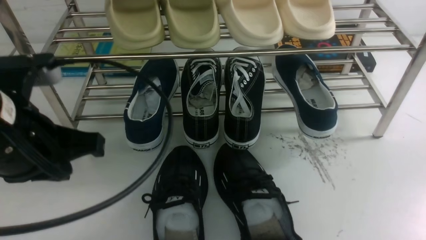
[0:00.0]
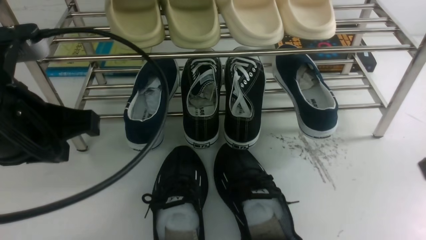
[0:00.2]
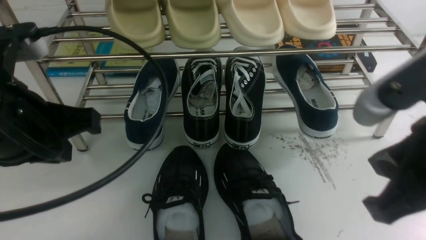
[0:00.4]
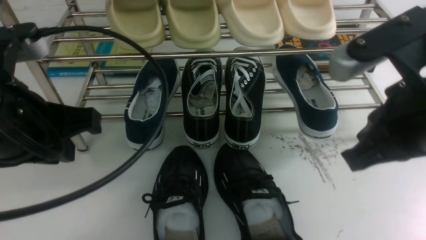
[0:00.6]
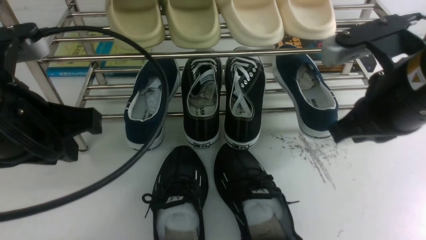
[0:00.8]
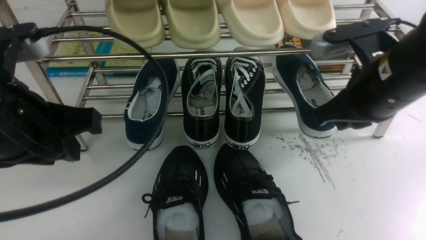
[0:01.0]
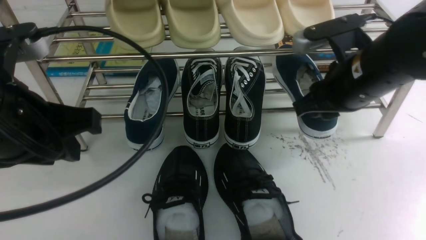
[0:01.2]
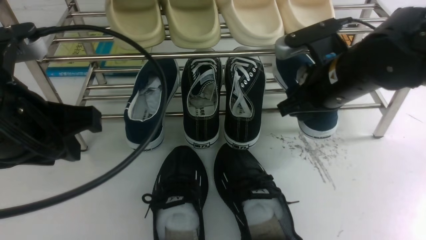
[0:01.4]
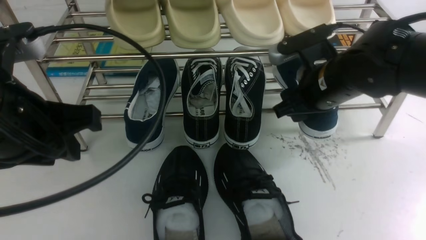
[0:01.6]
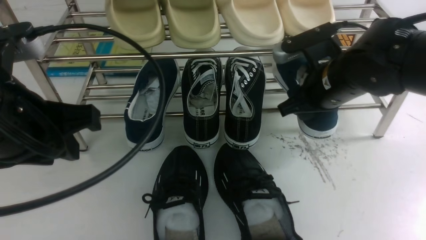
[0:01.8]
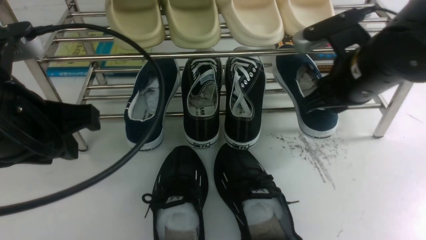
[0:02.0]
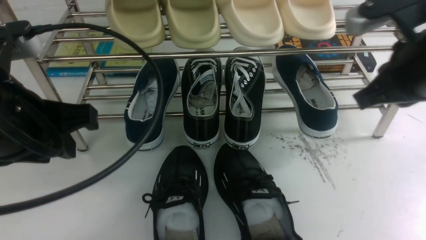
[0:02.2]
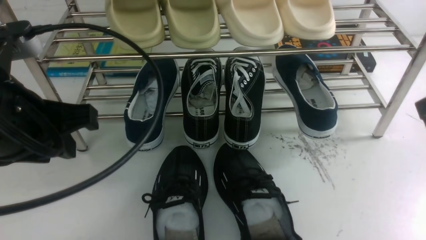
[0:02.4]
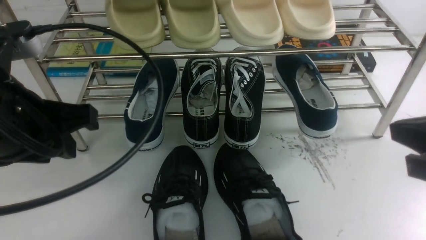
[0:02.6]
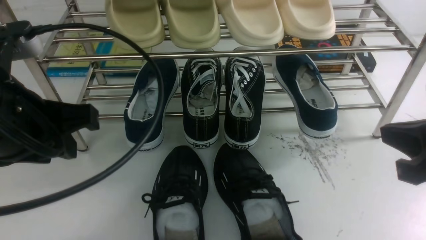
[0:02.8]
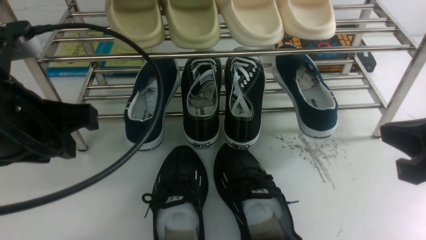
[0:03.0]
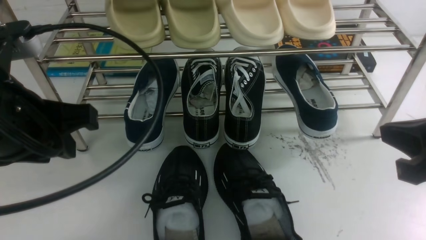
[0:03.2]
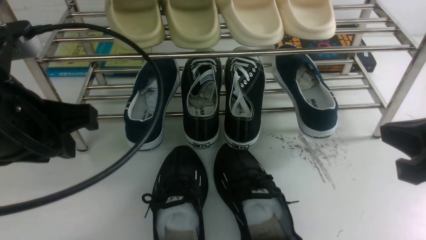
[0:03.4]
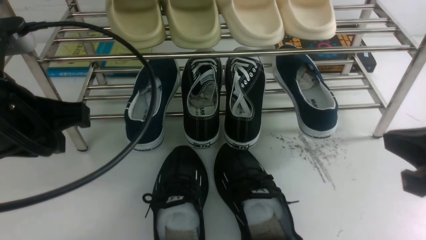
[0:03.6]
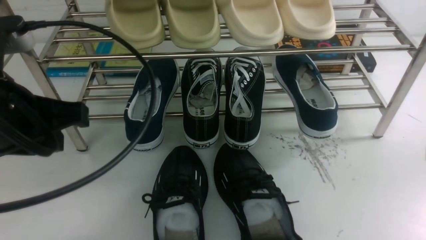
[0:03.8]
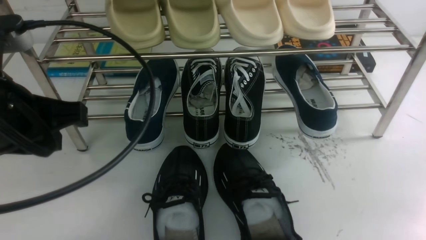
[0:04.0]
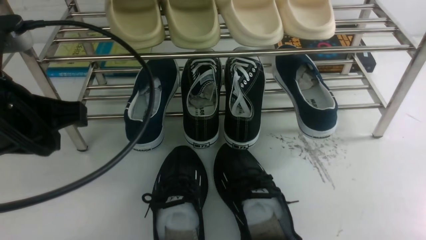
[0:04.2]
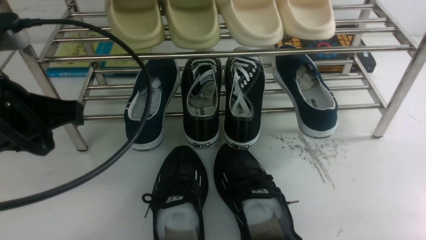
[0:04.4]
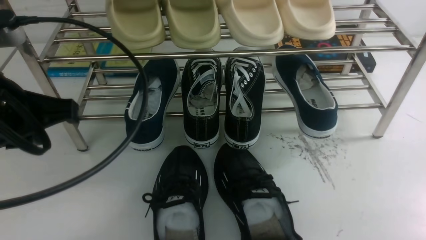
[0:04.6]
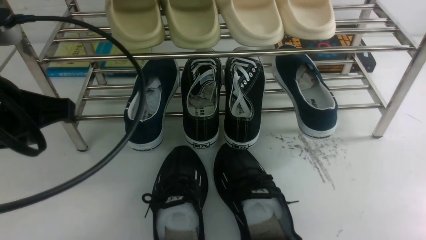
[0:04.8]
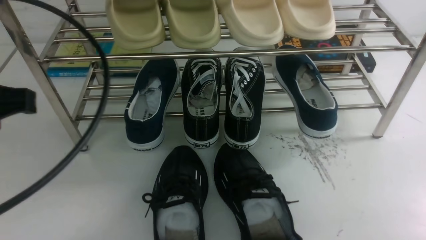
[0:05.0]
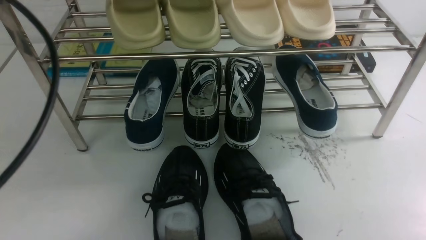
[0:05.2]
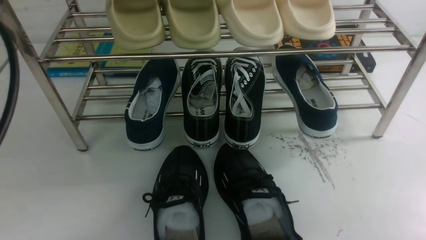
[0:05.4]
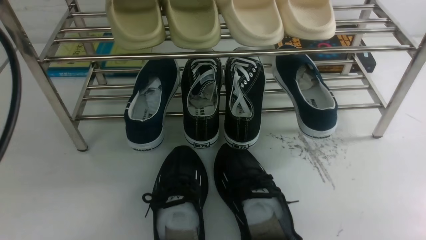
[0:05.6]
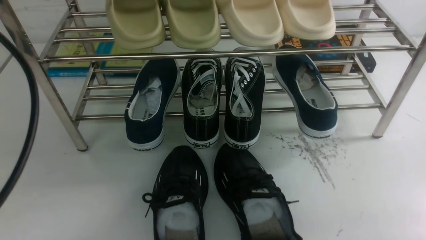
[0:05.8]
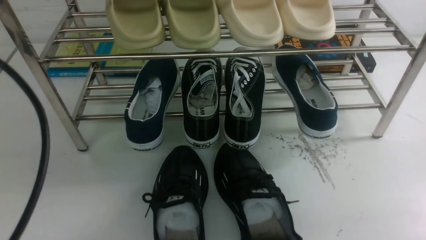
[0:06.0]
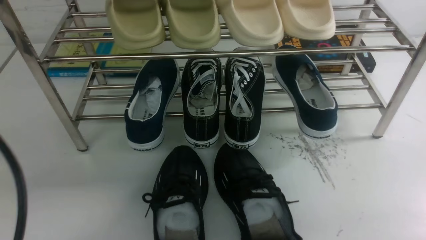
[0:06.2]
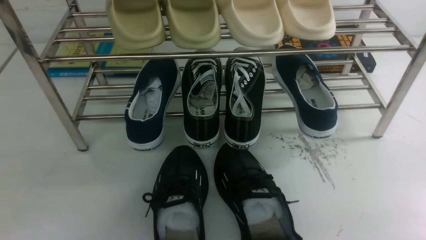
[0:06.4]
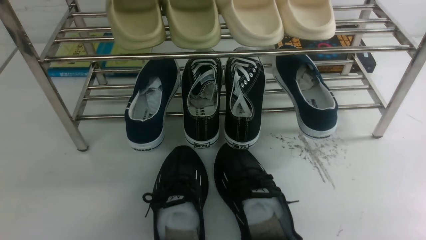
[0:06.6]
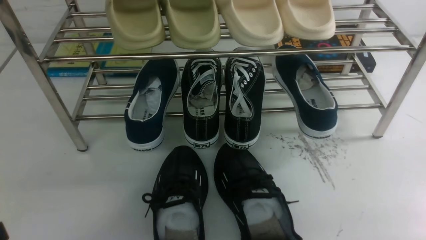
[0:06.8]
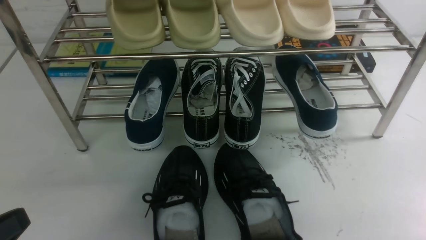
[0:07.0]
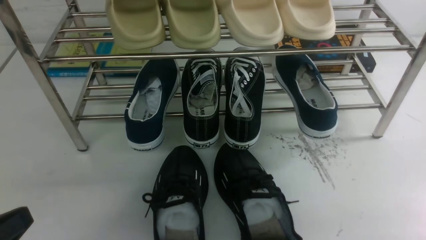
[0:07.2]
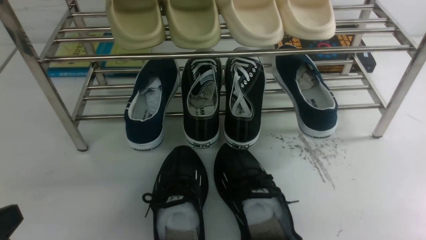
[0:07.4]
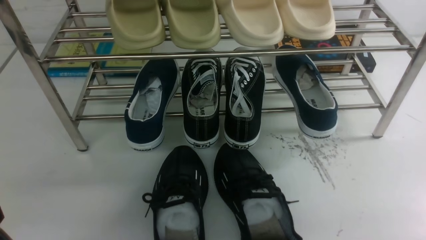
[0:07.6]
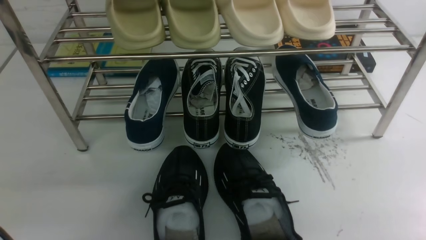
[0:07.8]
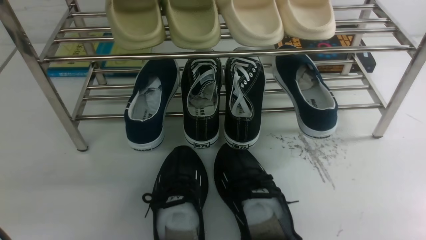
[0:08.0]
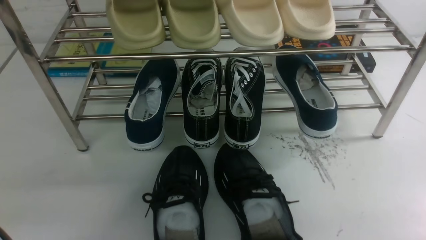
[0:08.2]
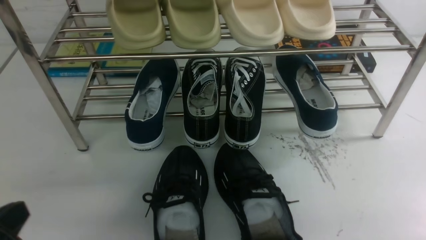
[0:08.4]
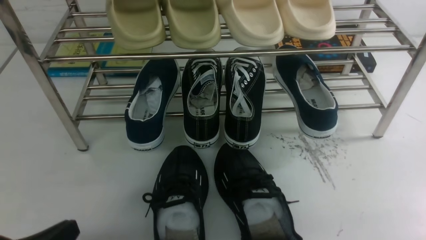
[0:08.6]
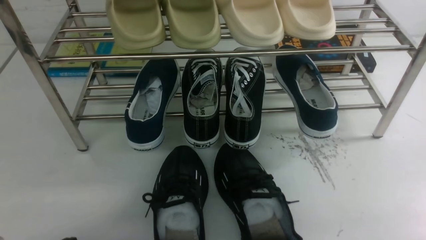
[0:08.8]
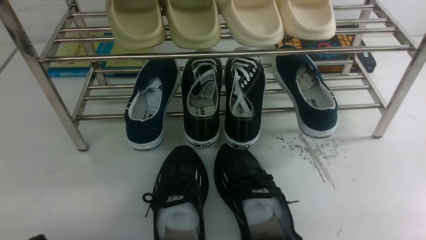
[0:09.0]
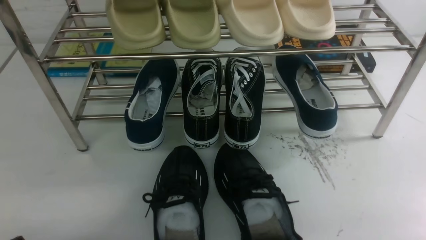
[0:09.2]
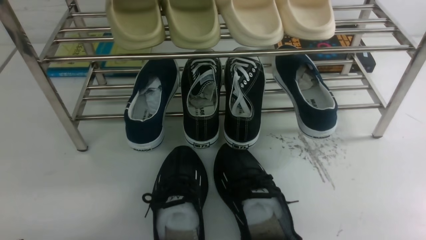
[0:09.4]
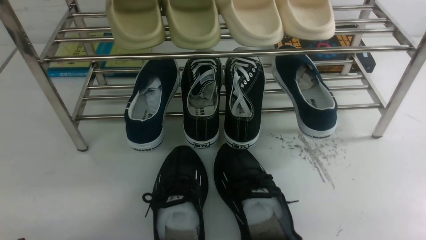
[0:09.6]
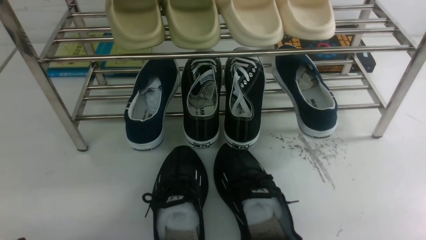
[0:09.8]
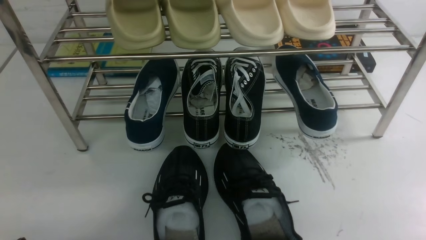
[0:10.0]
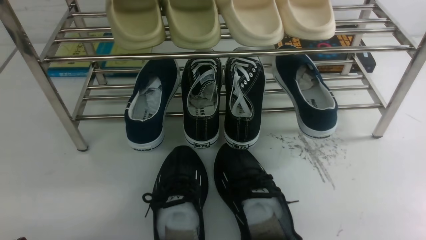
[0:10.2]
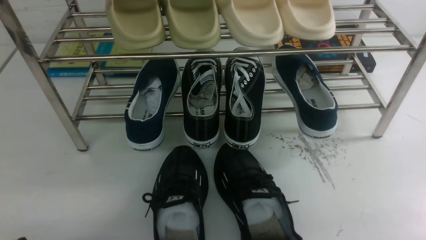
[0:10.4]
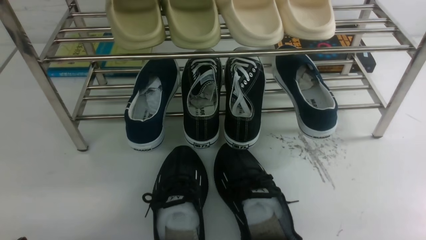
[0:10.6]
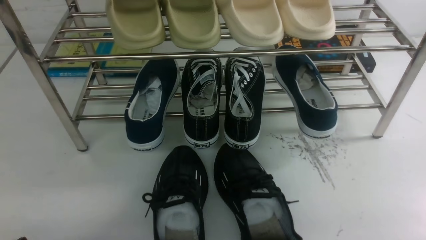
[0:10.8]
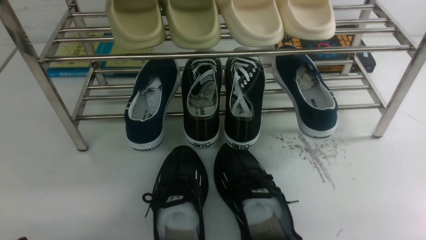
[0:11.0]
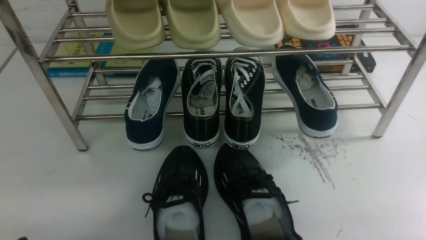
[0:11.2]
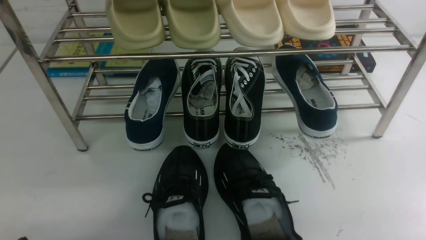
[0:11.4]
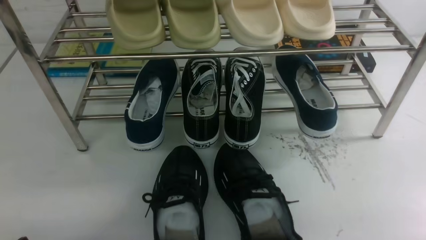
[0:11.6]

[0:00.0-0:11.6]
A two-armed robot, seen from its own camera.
0:00.0 to 0:01.4: The right gripper is displaced forward, to the left and downward by approximately 25 cm, and opens its fingers. The left gripper opens up.
0:01.4 to 0:02.8: The right gripper heads backward and to the right, covering about 20 cm, and closes up.
0:02.8 to 0:04.4: The right gripper travels downward, backward and to the right by about 20 cm.
0:04.4 to 0:05.8: The left gripper shifts about 10 cm backward and to the left.
0:05.8 to 0:07.2: The left gripper goes about 15 cm downward and backward.
0:07.2 to 0:08.8: The left gripper travels downward by roughly 10 cm.
0:10.2 to 0:11.6: Both grippers stay about where they are.
